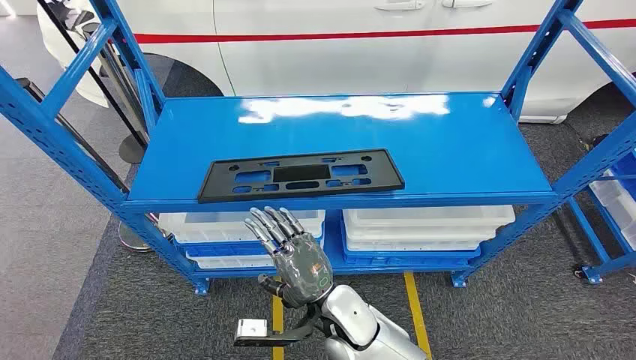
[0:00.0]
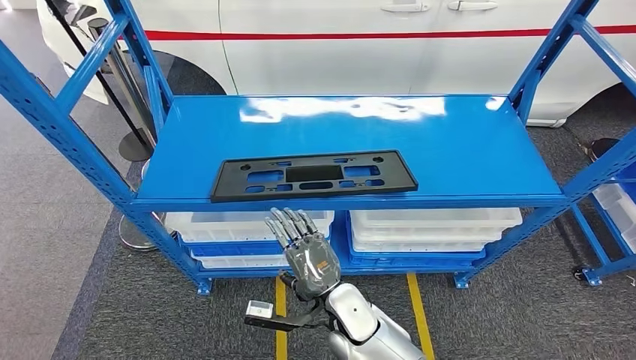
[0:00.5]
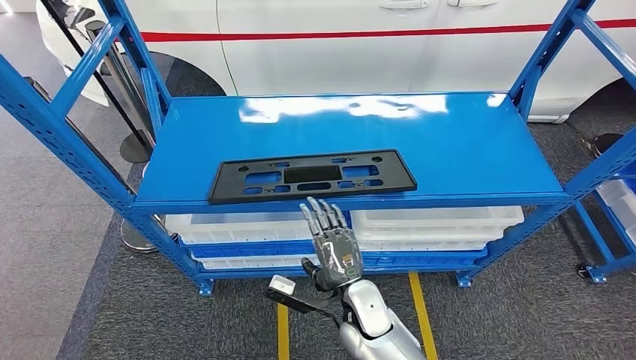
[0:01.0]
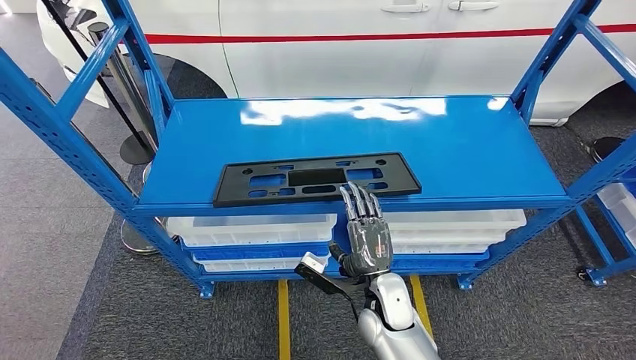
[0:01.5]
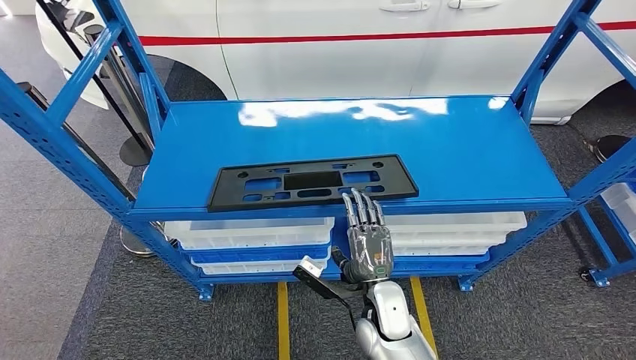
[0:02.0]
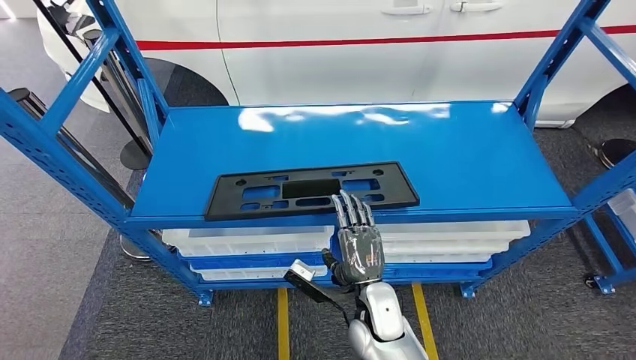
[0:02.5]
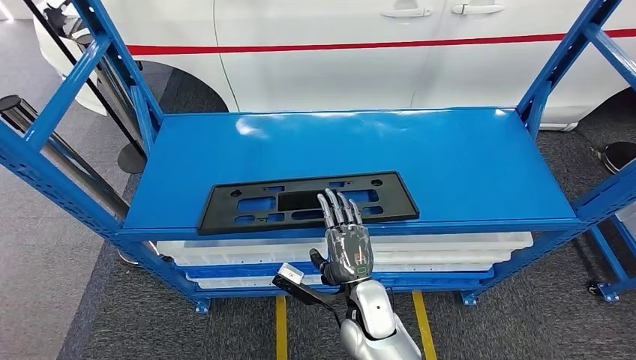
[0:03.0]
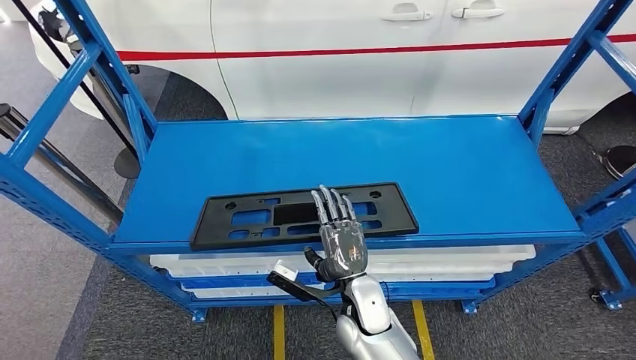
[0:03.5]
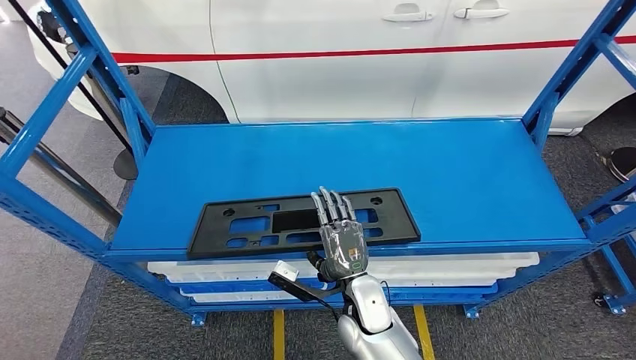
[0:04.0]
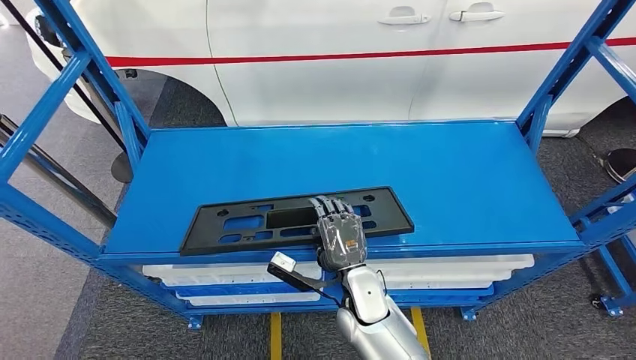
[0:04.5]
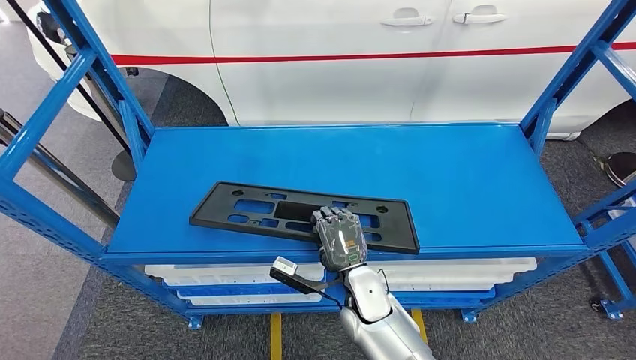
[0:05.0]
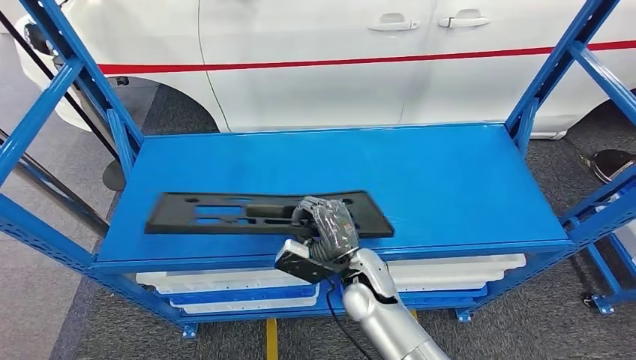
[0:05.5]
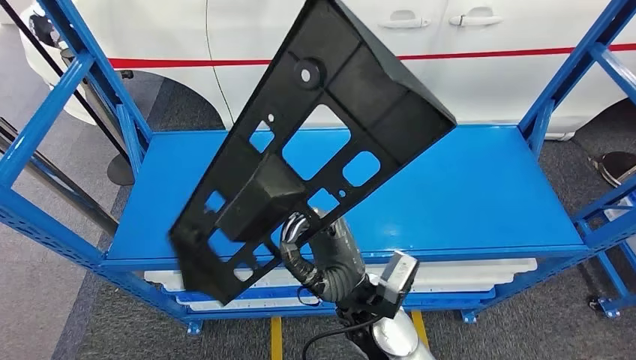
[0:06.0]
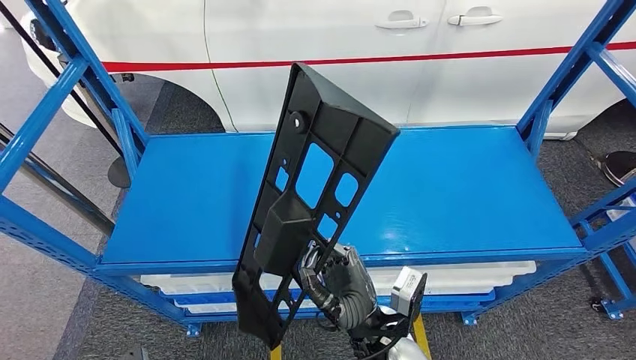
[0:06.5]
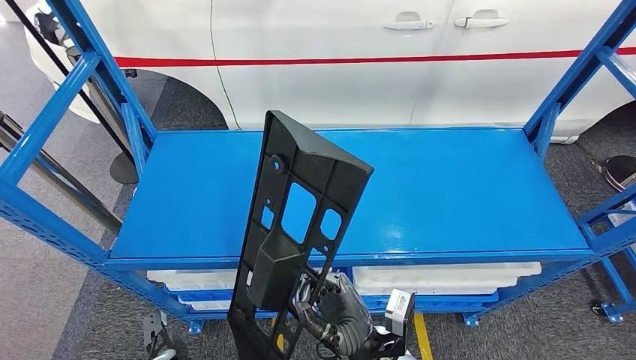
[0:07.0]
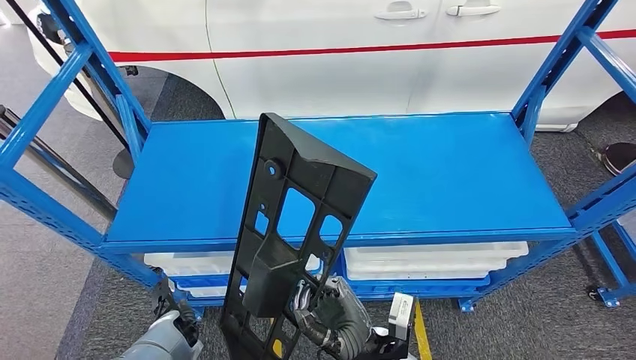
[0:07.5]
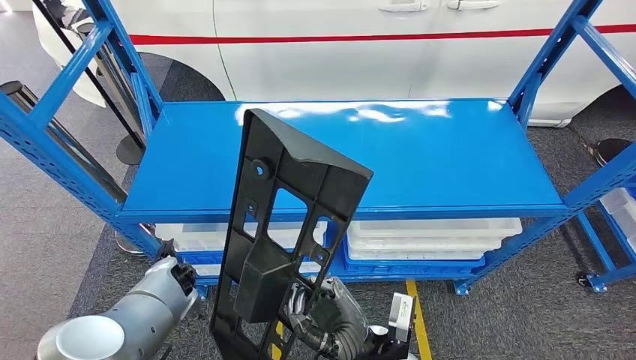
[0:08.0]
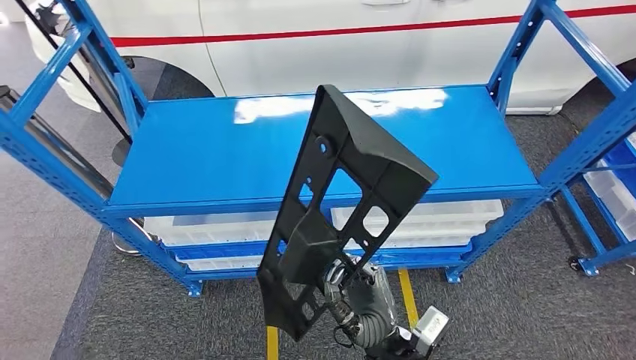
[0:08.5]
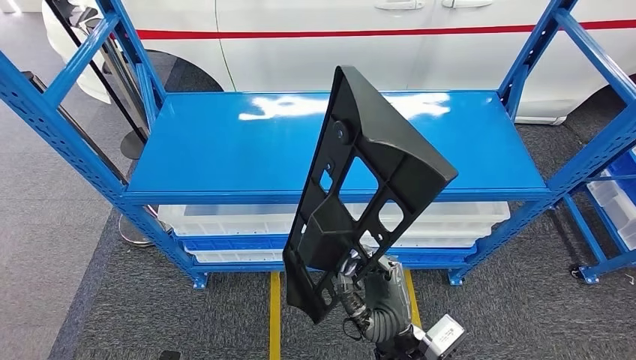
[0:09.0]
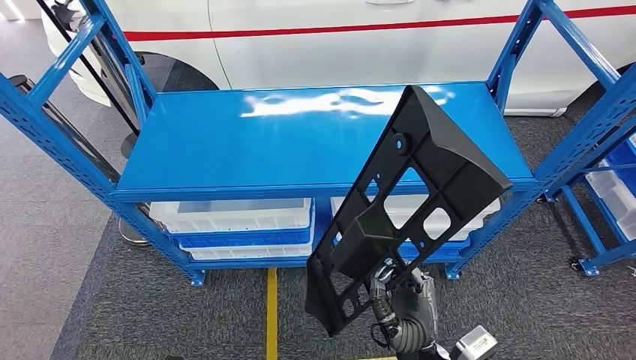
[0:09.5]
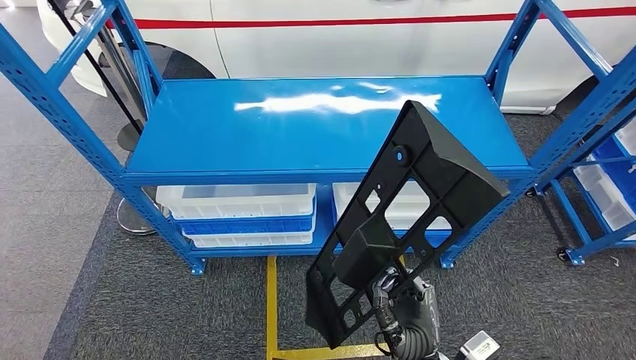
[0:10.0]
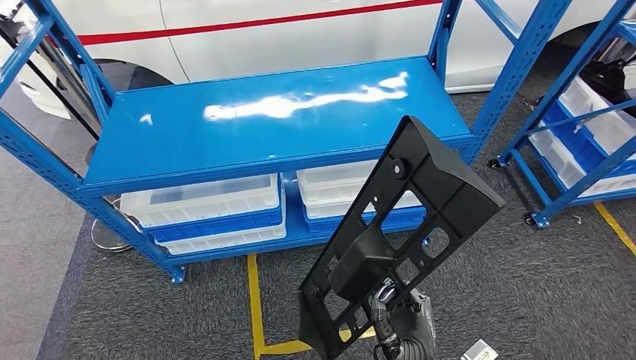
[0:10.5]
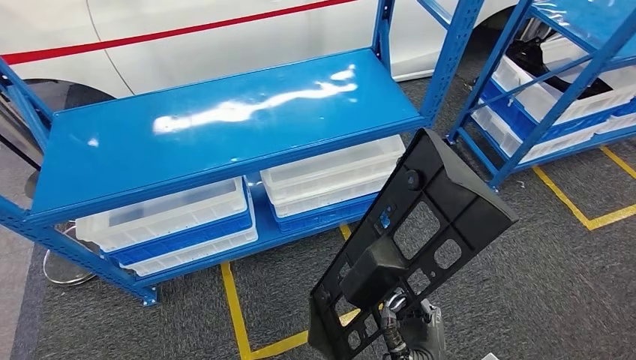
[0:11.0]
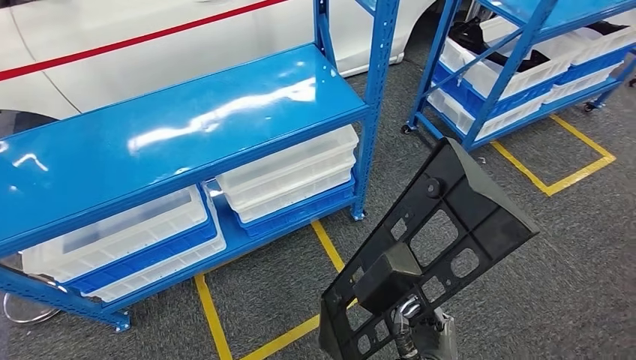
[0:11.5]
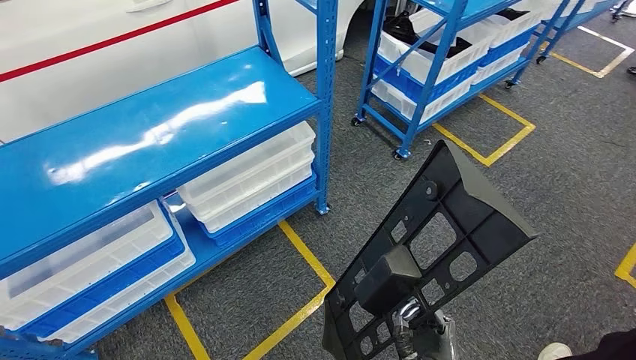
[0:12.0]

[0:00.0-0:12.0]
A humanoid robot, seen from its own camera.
Step, 0:00.0 to 0:08.0: Pick up the large material from the shelf.

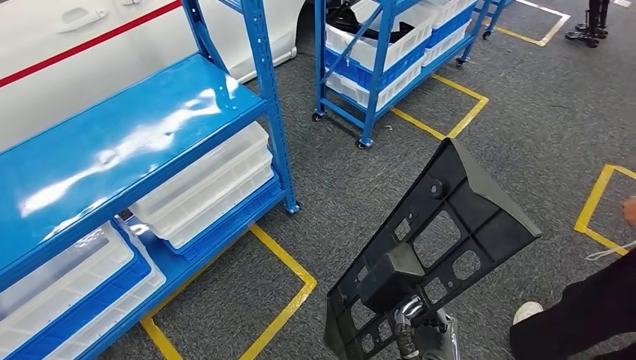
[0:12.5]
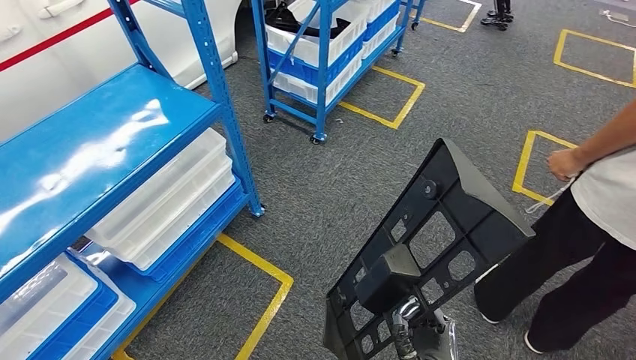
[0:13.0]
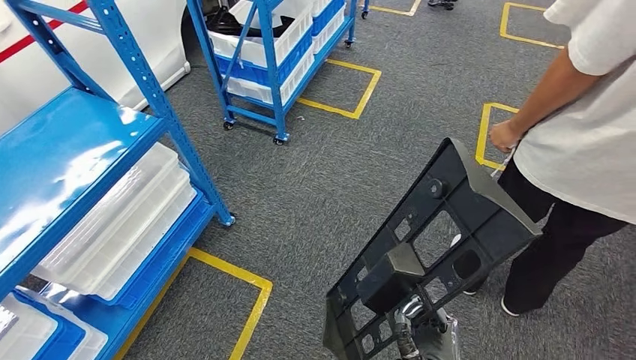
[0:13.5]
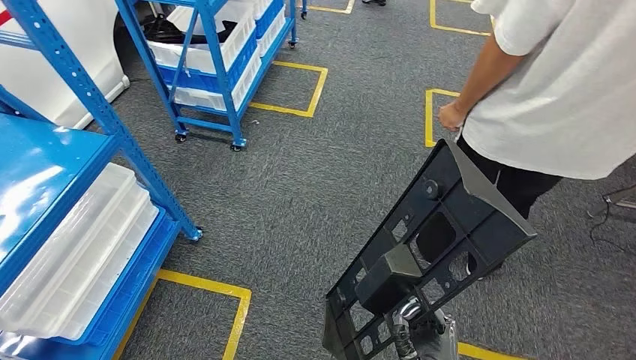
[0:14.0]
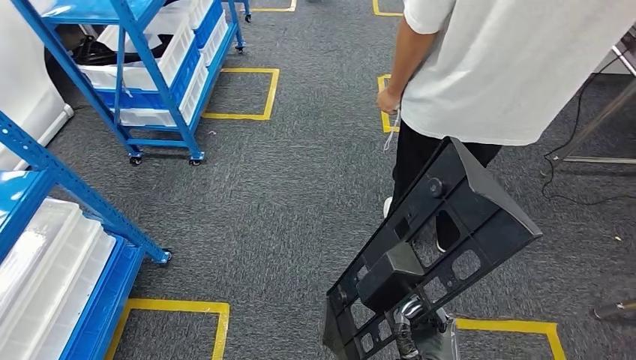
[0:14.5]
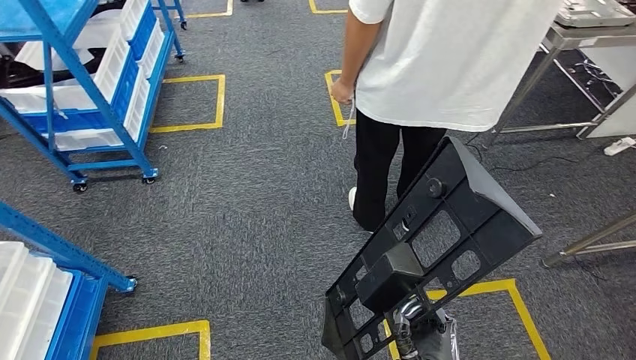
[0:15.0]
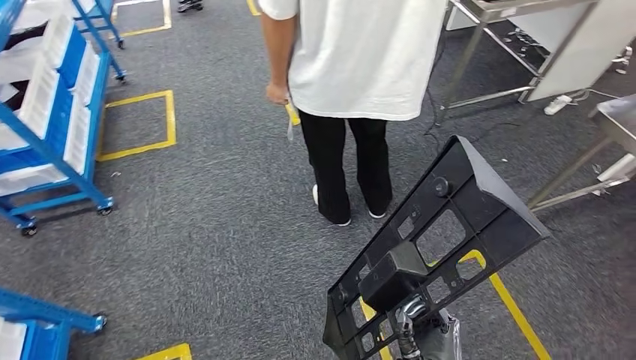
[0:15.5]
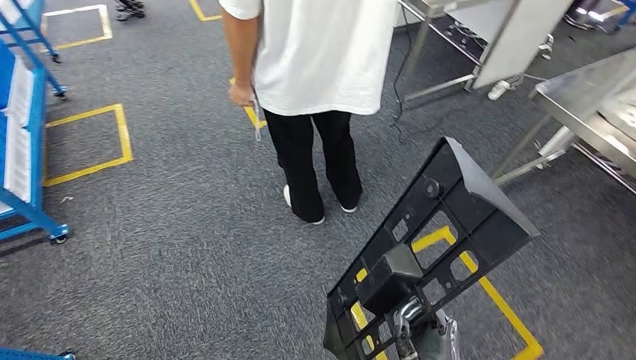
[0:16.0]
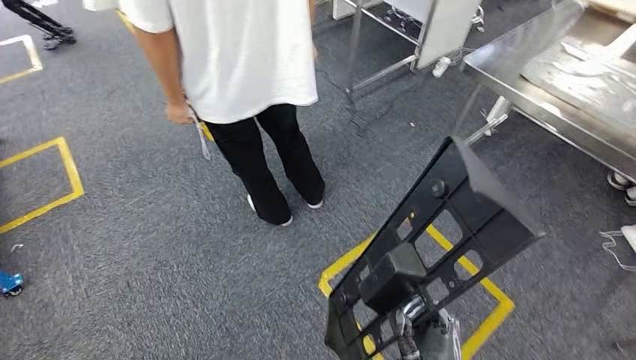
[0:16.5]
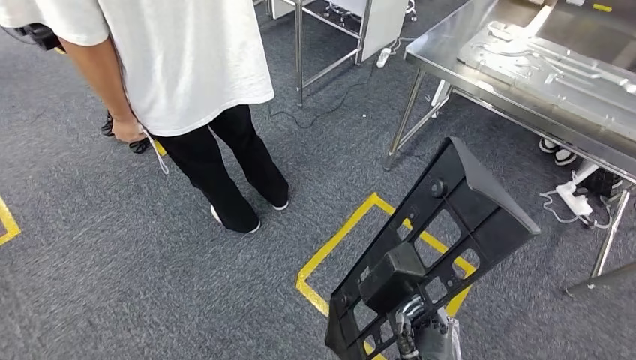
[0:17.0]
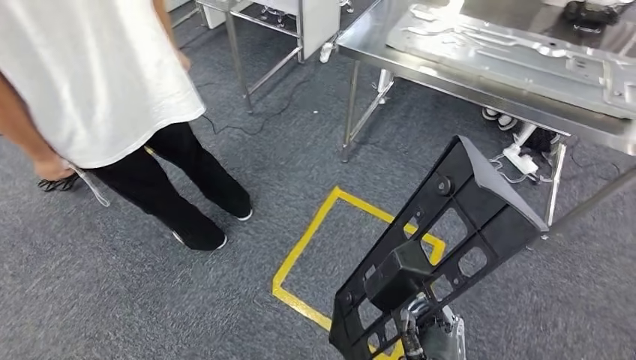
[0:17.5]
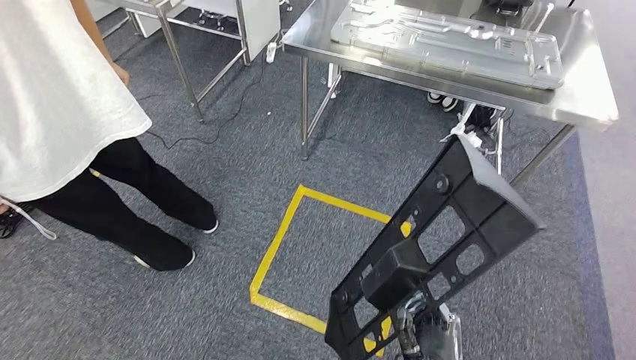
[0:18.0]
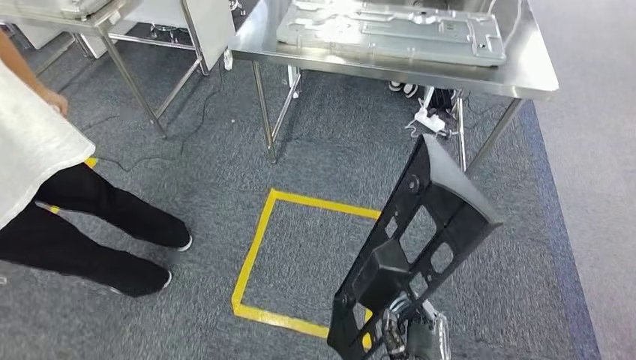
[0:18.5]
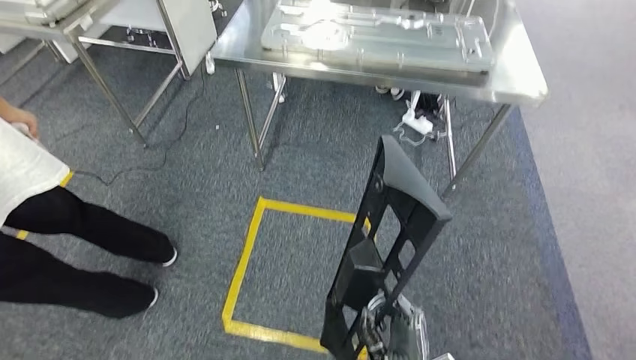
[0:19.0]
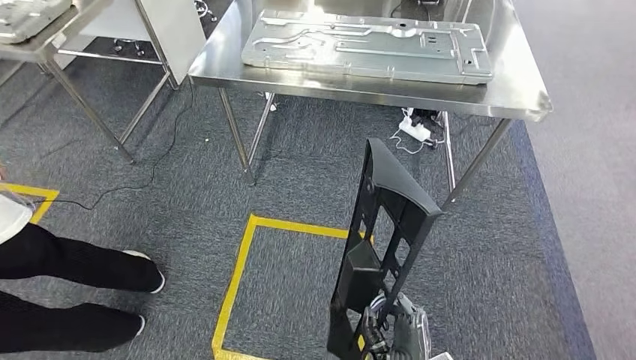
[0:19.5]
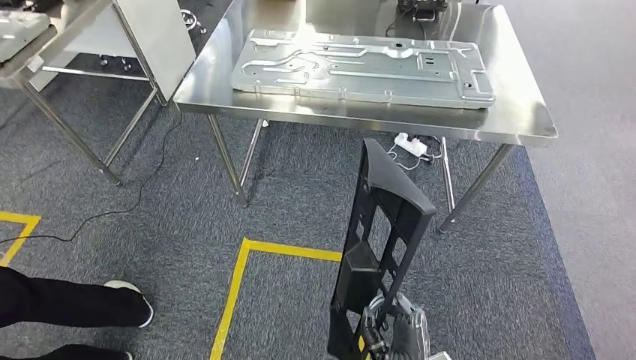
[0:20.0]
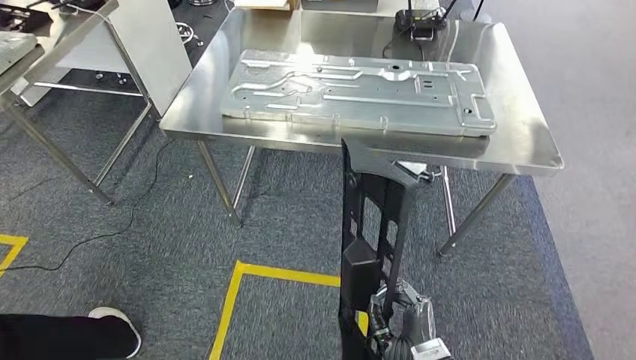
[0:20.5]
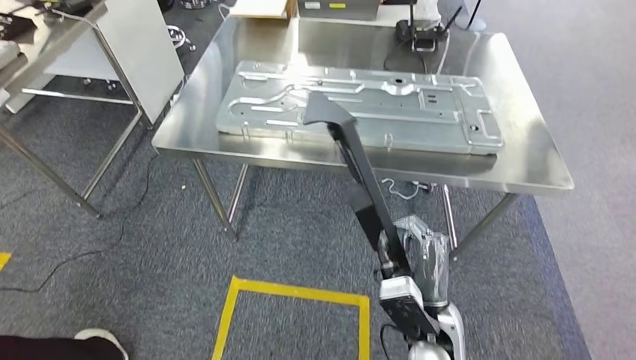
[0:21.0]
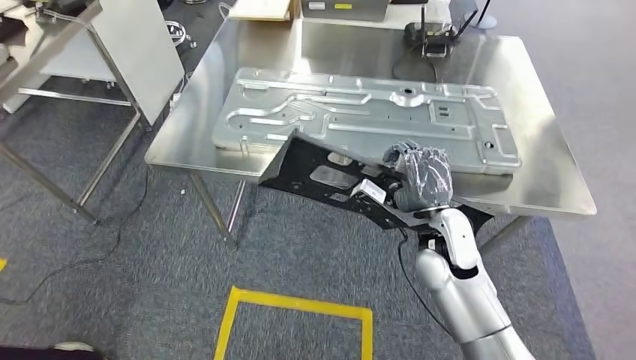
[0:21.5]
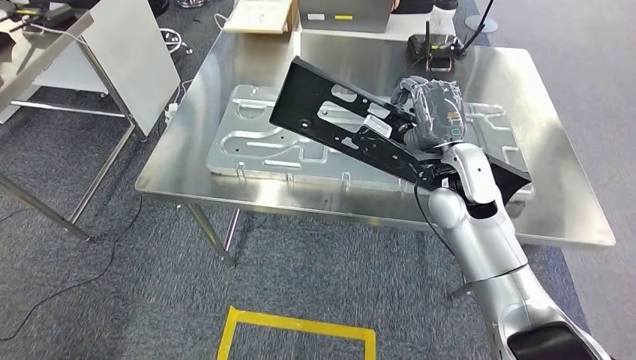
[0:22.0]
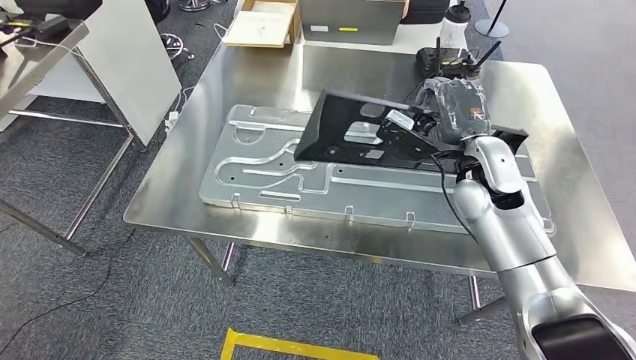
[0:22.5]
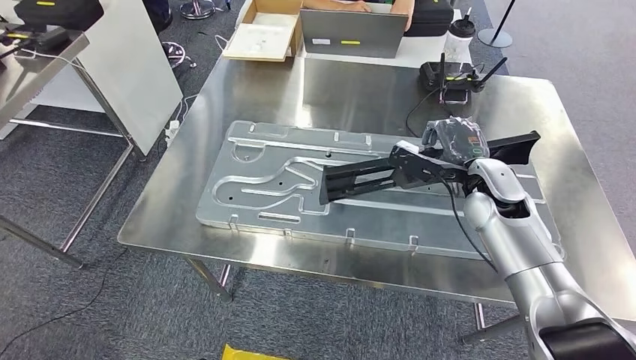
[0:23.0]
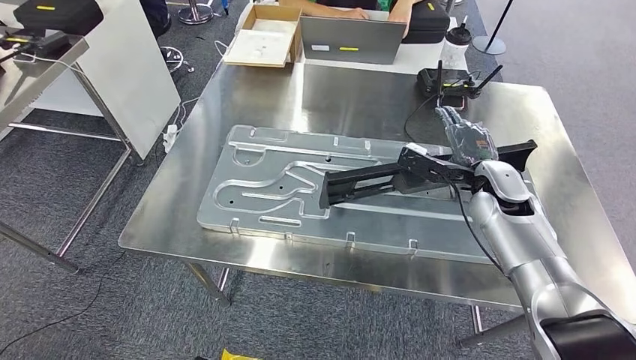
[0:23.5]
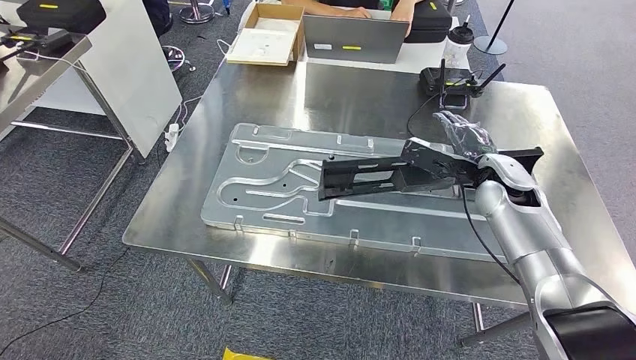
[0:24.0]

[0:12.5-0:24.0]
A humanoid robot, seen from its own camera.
Step, 0:12.5 to 0:21.0: Move the large material to the workbench.
